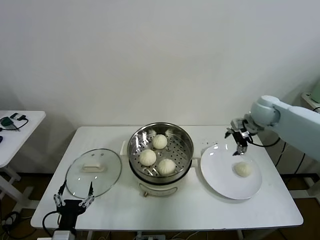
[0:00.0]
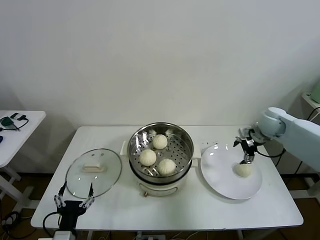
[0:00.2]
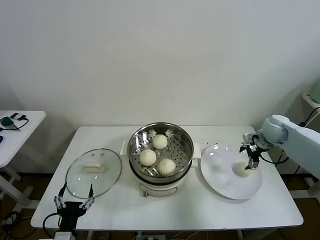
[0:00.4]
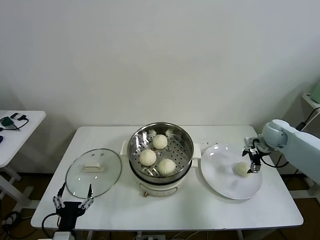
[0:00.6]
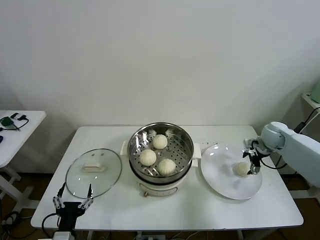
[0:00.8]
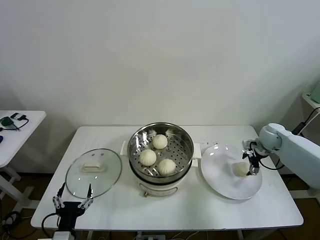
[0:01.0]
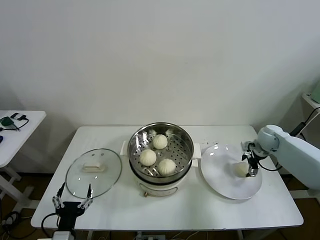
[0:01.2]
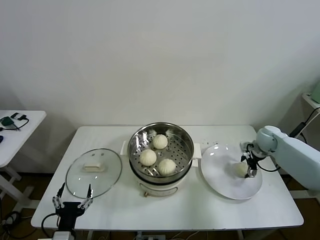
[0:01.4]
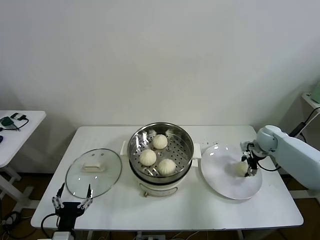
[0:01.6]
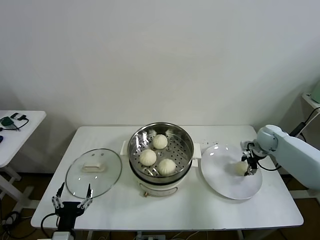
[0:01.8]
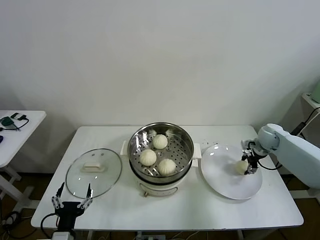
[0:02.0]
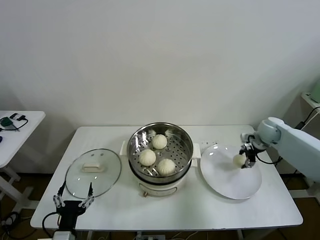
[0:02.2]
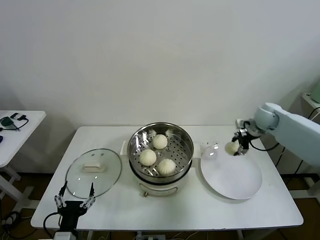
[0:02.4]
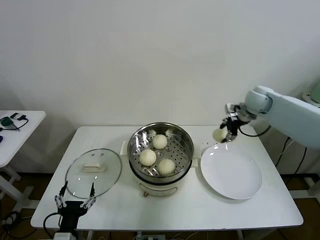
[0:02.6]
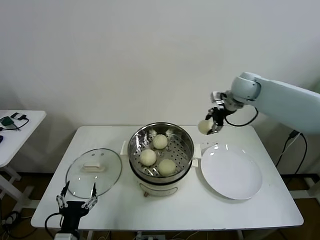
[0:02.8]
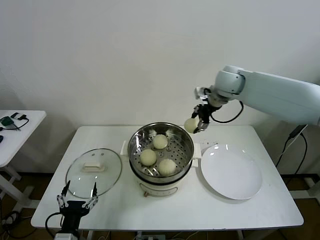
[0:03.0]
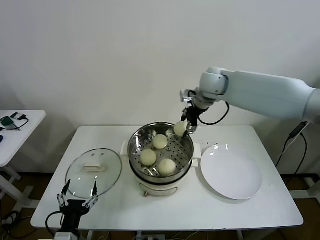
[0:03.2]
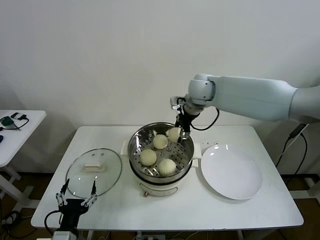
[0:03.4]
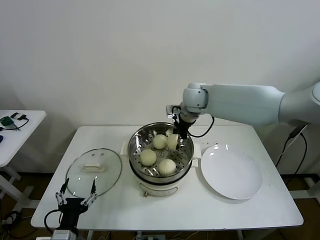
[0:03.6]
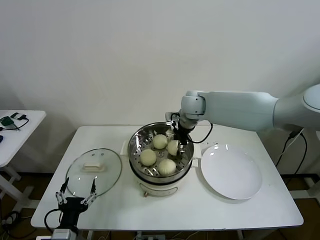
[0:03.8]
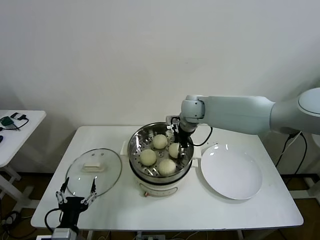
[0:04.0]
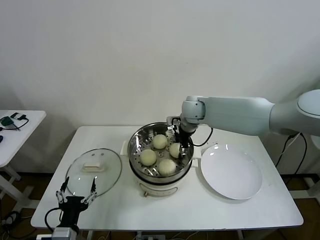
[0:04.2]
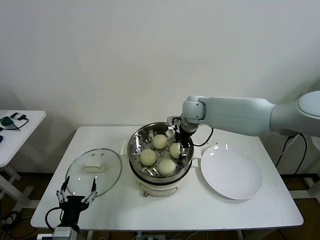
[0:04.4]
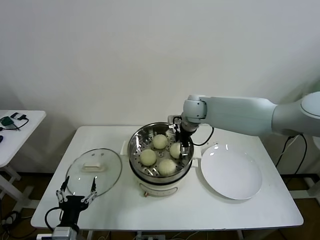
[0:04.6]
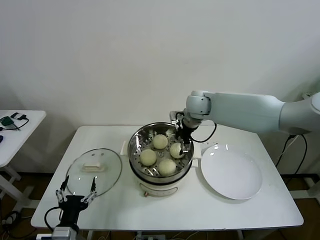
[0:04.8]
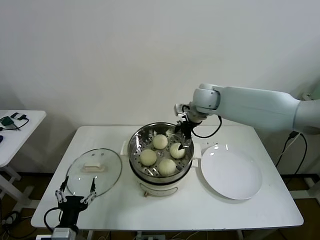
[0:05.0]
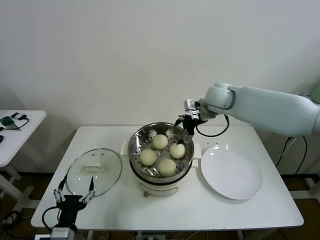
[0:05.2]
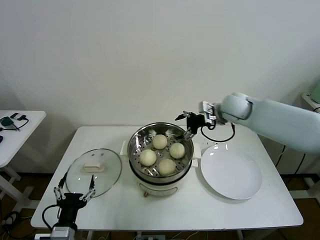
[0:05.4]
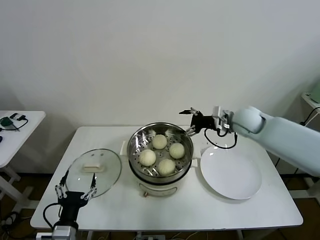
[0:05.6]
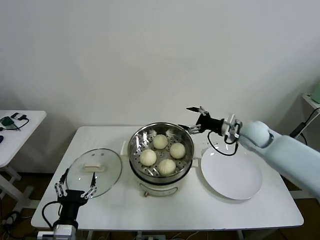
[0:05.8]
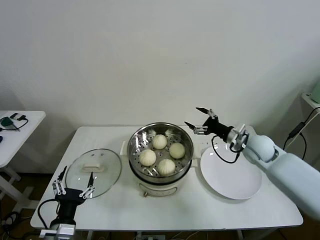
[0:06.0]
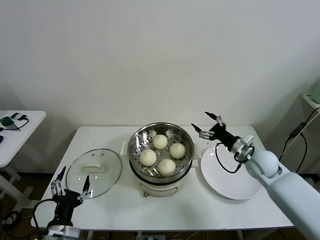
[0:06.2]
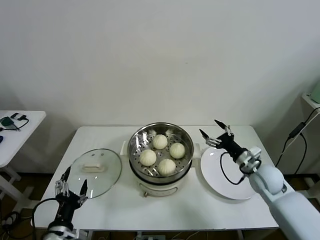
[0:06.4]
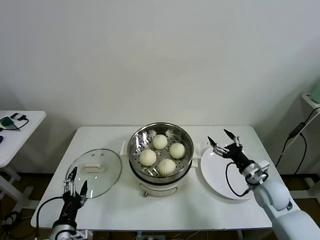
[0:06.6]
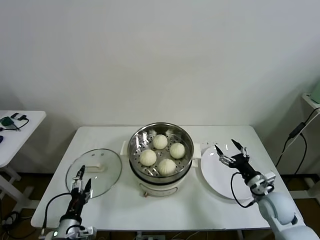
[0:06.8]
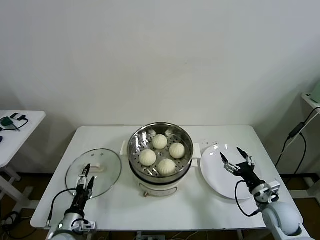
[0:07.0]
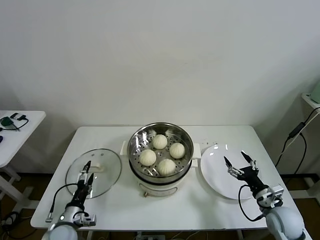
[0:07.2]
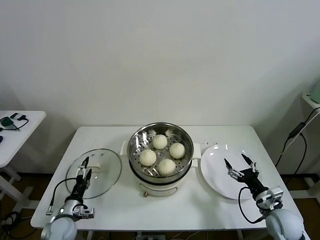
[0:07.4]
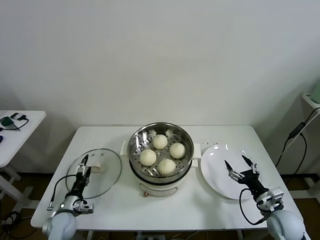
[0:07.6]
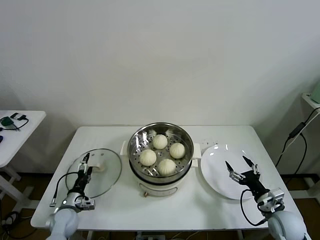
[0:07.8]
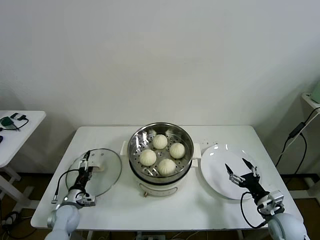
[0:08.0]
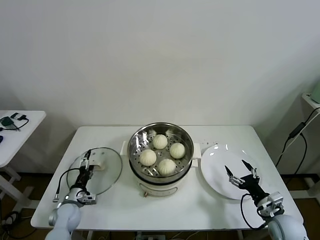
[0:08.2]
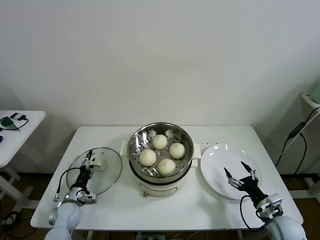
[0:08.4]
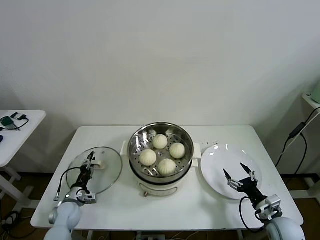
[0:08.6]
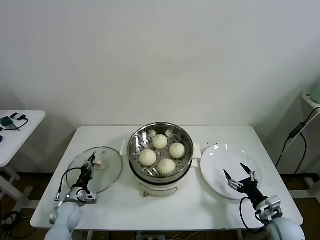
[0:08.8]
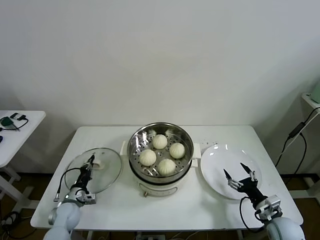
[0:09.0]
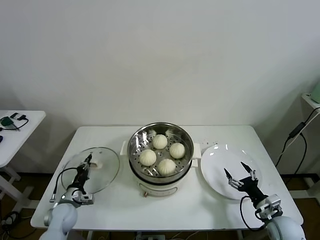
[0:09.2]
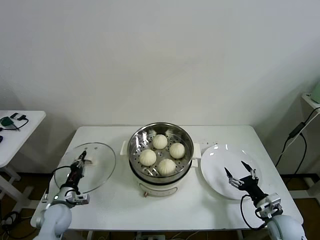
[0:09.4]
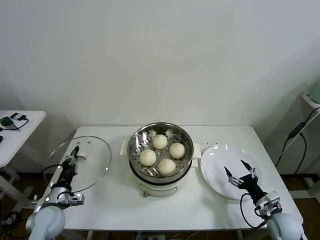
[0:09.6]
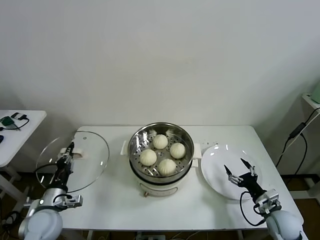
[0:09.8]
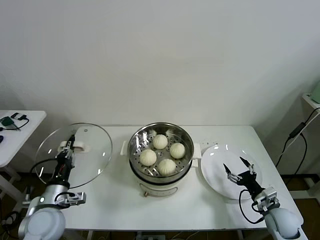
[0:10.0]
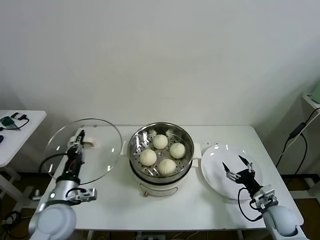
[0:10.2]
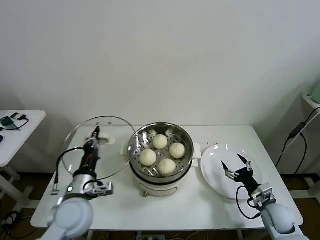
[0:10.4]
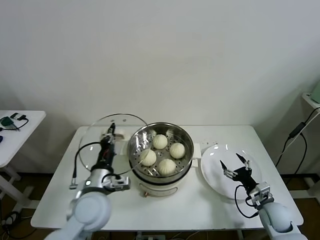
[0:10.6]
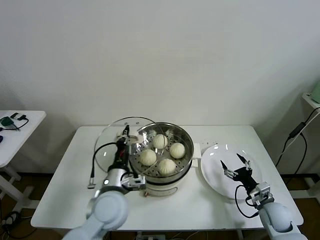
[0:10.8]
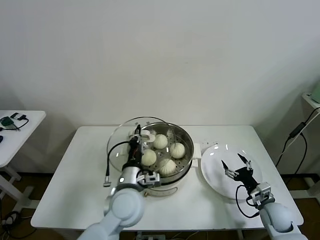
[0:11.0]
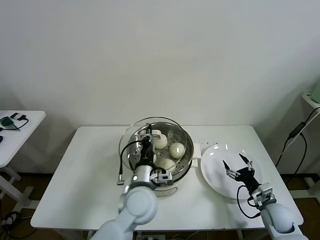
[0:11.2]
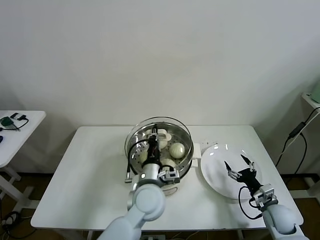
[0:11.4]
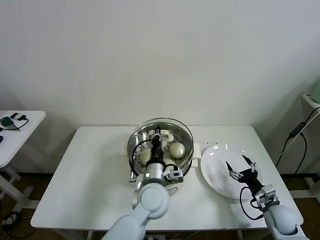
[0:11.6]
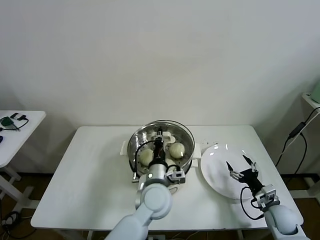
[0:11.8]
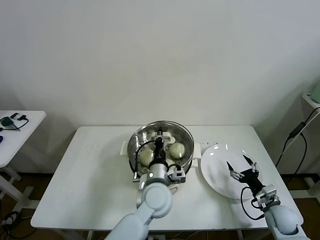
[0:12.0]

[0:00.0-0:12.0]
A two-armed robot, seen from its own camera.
Task of the whole recording: take steamed baozi put them in steamer then cover it.
Step, 0:00.0 to 0:01.8: Grasp the baozi in the plate with right gripper.
Step, 0:02.0 to 0:04.4: Place the baozi on the steamer with right gripper.
Step, 0:04.6 to 0:08.8: Grasp the pot lid with left gripper.
0:00.0 to 0:01.6: The right gripper heads downward and to the right, covering some 15 cm, and closes.
0:01.6 to 0:03.0: The right gripper moves upward and to the left, some 30 cm, and closes up.
0:03.0 to 0:04.4: The right gripper shifts some 15 cm downward and to the left, and opens.
0:04.4 to 0:06.0: The right gripper shifts roughly 25 cm to the right, backward and downward, and opens up.
0:06.0 to 0:07.6: The right gripper is displaced backward and downward by roughly 25 cm; the left gripper moves downward, forward and to the left, approximately 20 cm.
0:07.6 to 0:09.0: The left gripper shifts by approximately 5 cm, and closes up.
0:09.0 to 0:10.4: The left gripper moves upward and to the right, approximately 25 cm.
0:10.4 to 0:12.0: The left gripper heads to the right, covering roughly 25 cm.

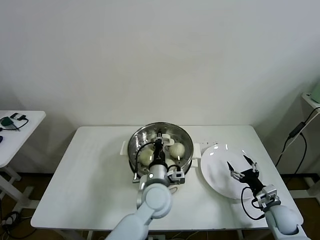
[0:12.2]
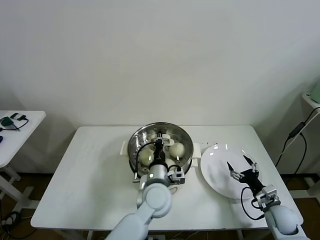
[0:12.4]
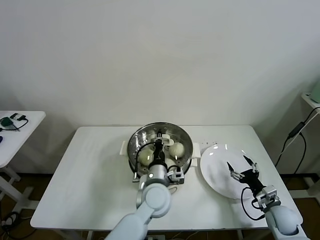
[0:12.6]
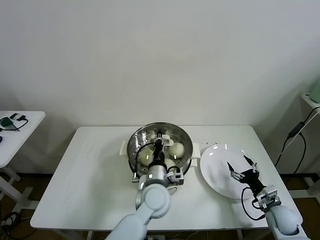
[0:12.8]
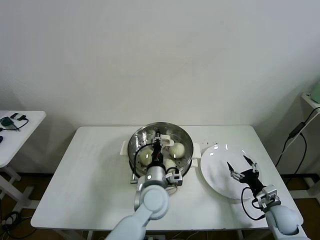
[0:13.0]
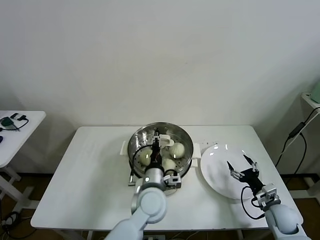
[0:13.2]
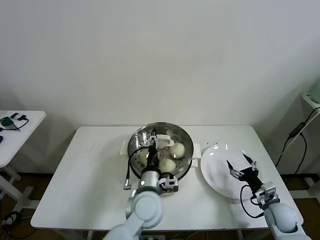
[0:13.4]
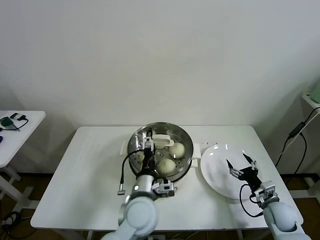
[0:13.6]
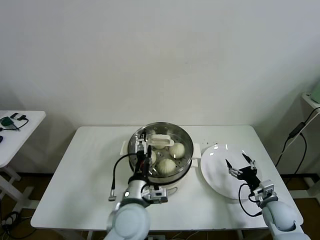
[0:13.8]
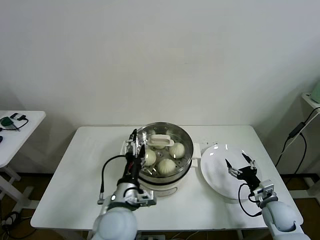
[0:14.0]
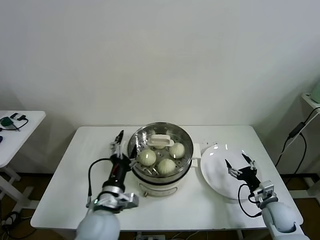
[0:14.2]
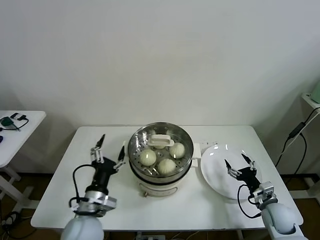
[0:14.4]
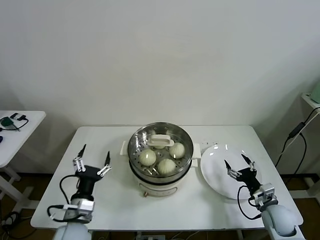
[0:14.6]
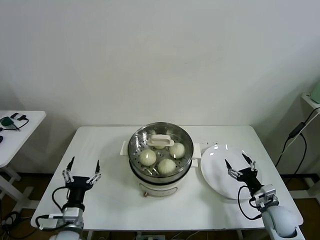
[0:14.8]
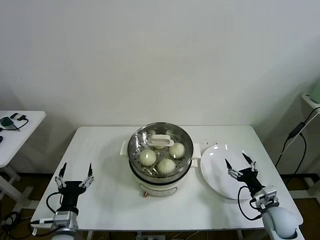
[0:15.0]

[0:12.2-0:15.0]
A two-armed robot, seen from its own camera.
Task of the whole recording: take steamed baozi put them in steamer then cover it.
0:12.2 to 0:13.6: The left gripper moves about 5 cm, and opens.
0:13.6 to 0:15.0: The left gripper is displaced to the left by roughly 25 cm.
